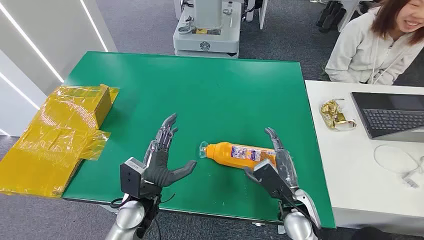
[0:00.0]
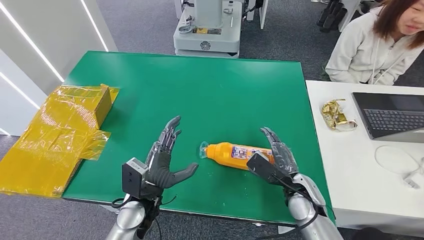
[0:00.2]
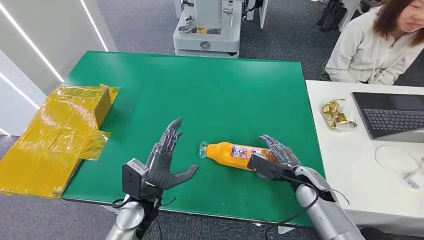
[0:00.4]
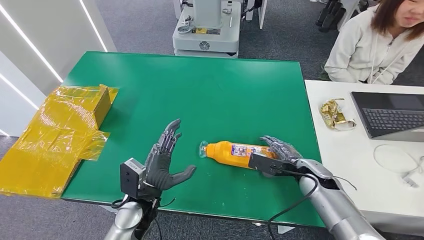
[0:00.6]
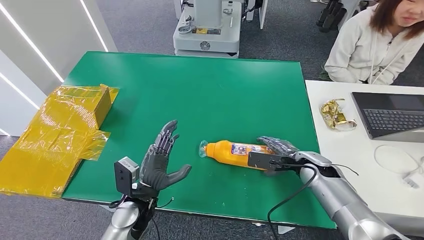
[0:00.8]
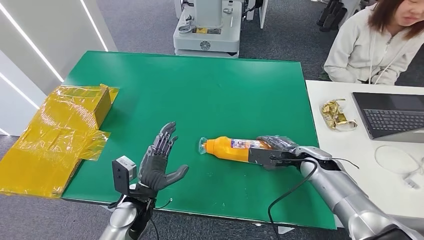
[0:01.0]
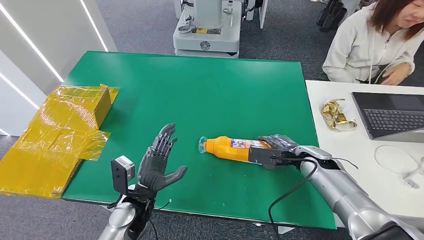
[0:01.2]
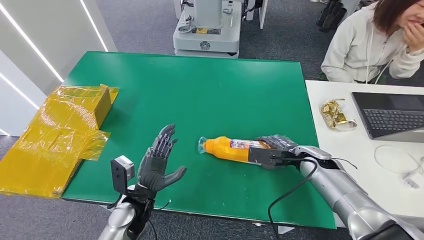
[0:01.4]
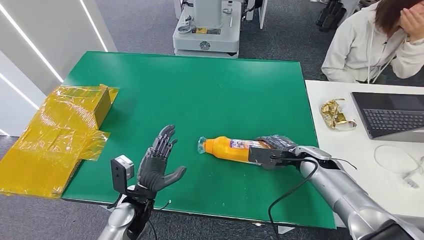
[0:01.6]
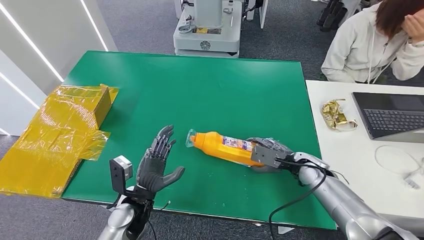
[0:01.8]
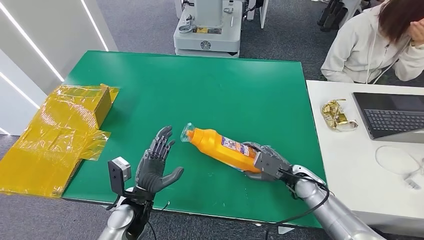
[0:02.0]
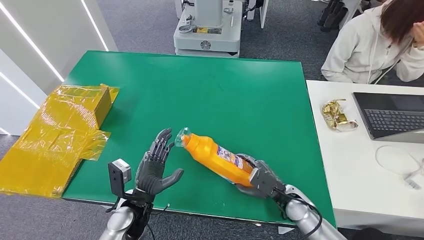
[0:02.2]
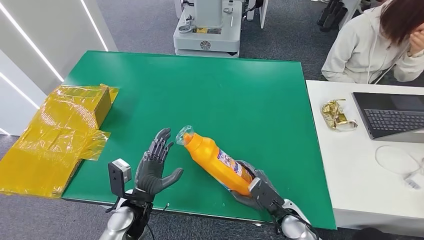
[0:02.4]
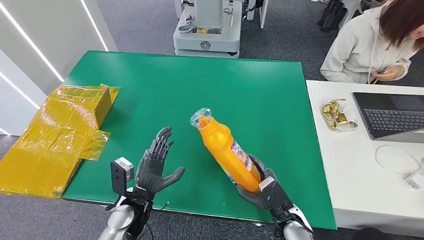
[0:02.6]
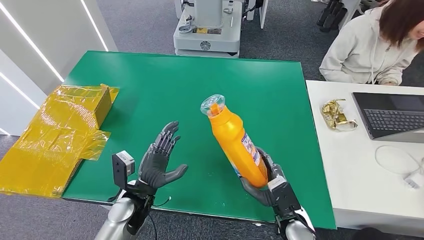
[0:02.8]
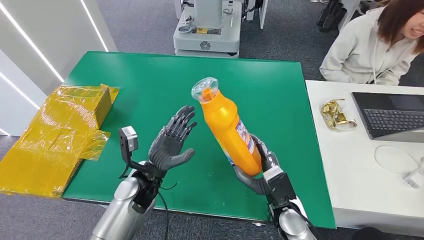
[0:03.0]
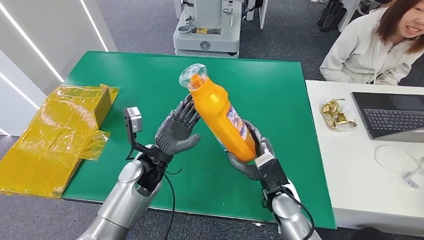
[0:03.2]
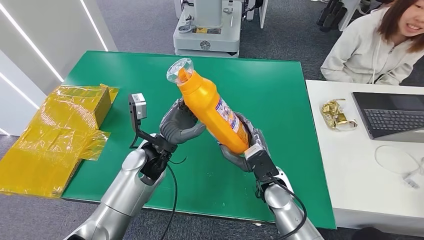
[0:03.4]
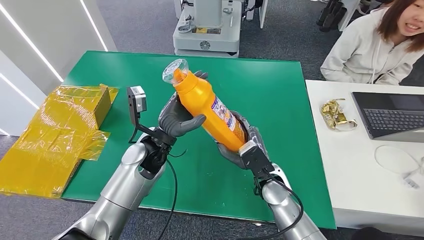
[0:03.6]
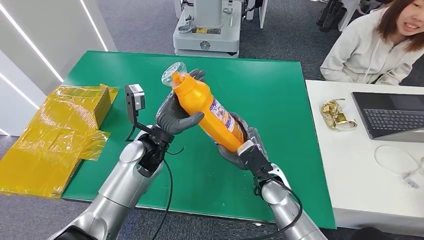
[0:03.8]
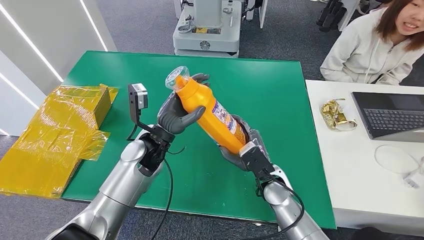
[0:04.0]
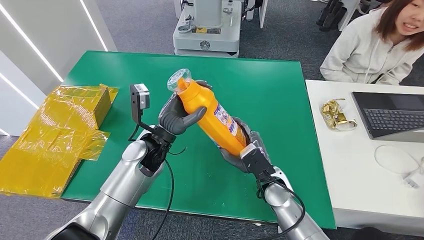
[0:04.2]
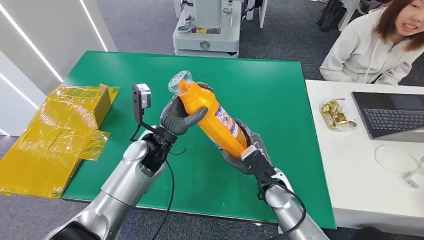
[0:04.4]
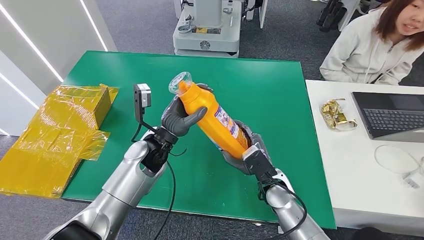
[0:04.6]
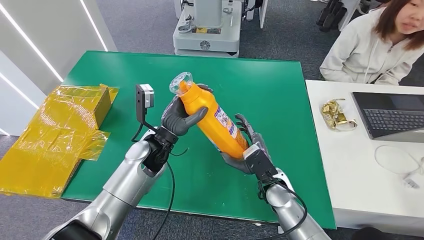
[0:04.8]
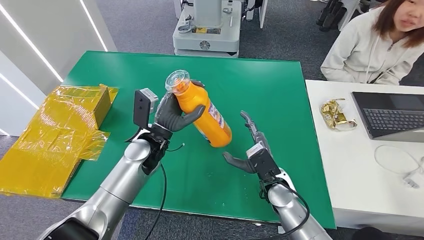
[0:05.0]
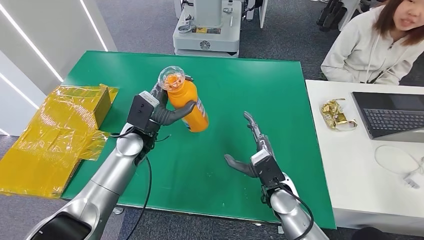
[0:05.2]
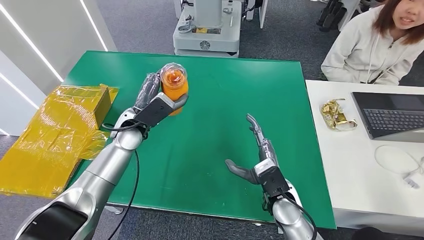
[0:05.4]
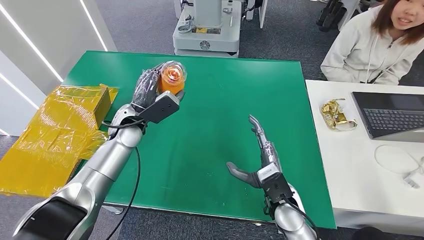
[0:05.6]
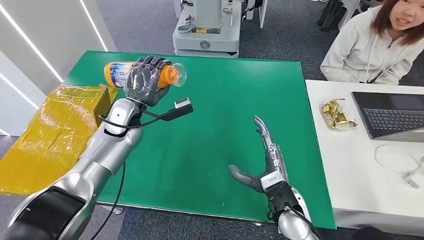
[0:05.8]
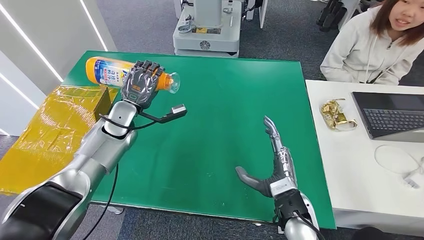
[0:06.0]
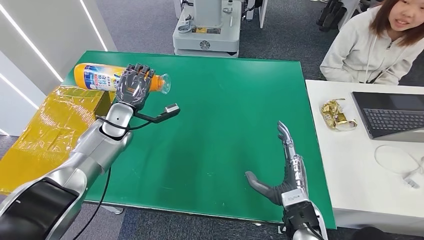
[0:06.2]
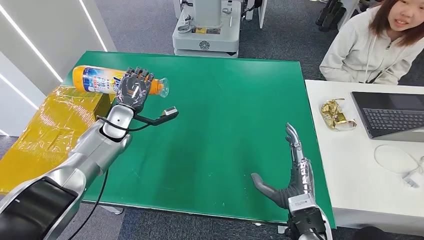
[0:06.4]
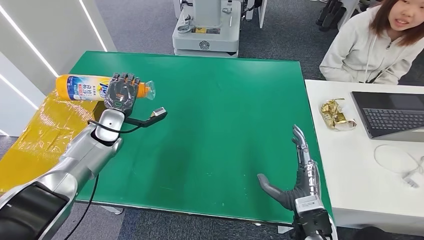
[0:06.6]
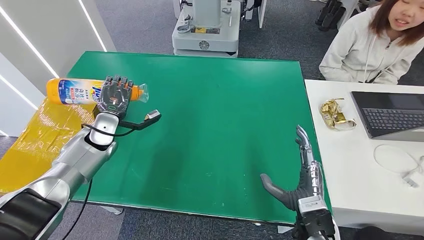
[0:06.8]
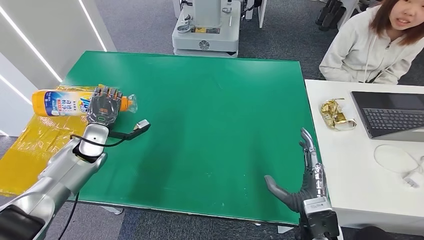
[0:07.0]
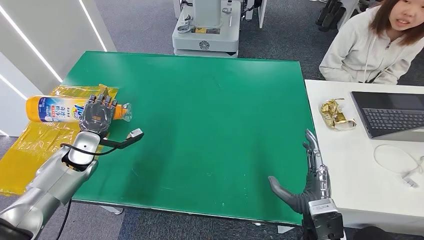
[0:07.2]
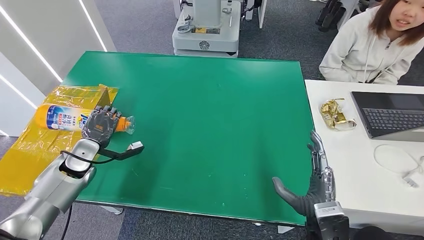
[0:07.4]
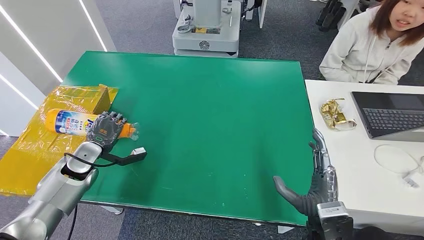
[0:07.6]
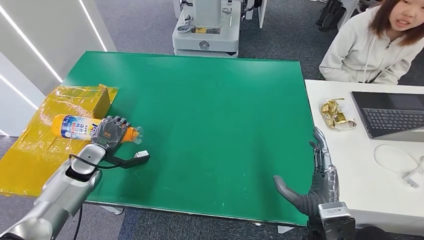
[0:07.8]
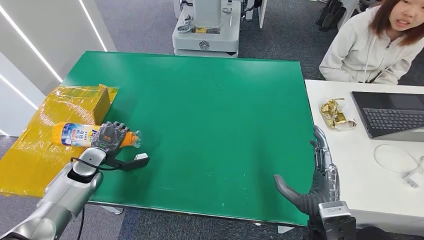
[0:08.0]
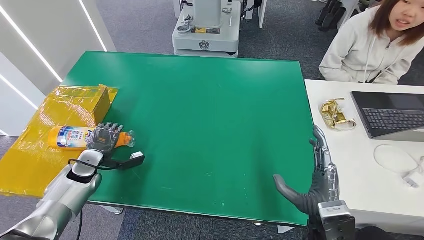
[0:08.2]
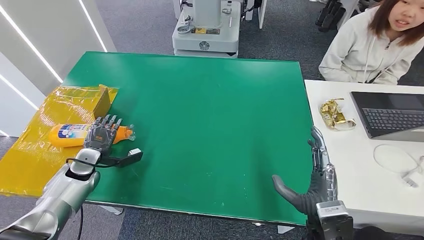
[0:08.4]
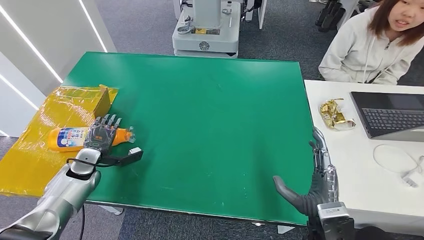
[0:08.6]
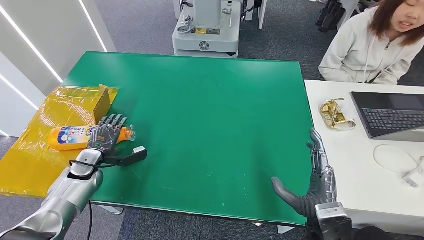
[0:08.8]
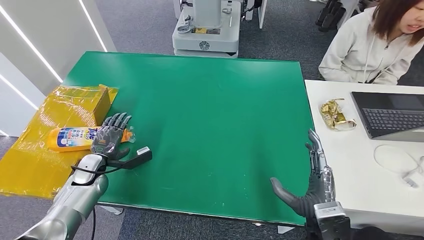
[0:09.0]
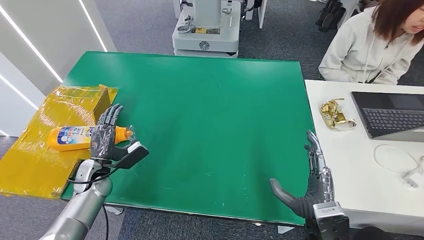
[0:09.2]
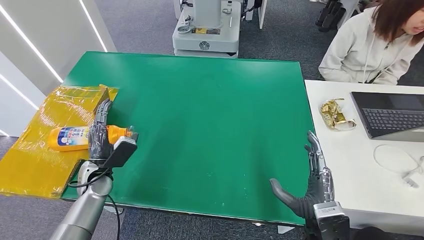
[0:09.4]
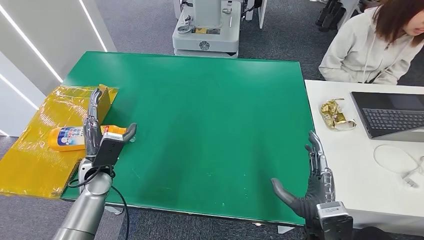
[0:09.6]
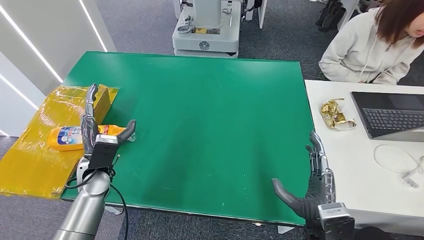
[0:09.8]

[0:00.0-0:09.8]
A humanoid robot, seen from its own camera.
Step, 0:00.0 to 0:03.2: Pick up the bottle from the table.
Step, 0:03.4 to 0:09.8: Turn the bottle to the front side.
0:01.4 to 0:02.8: The right hand travels backward, downward and to the left by roughly 20 cm.
0:02.8 to 0:04.2: The right hand heads forward, covering approximately 10 cm; the left hand shifts approximately 15 cm forward and upward.
0:07.0 to 0:08.4: The left hand travels downward by roughly 5 cm.
0:08.4 to 0:09.8: The left hand moves to the right and upward, roughly 10 cm.
